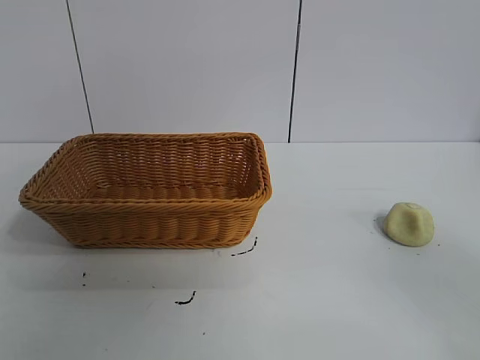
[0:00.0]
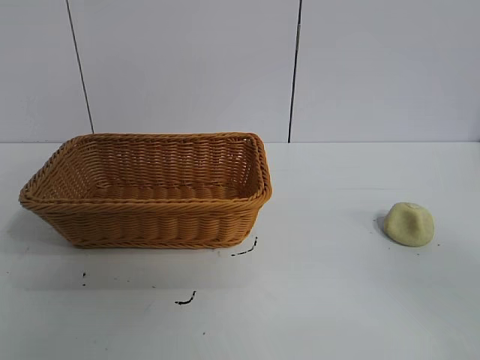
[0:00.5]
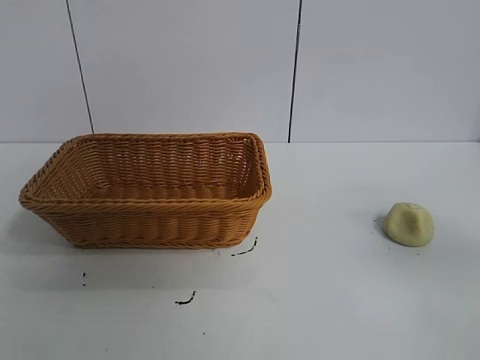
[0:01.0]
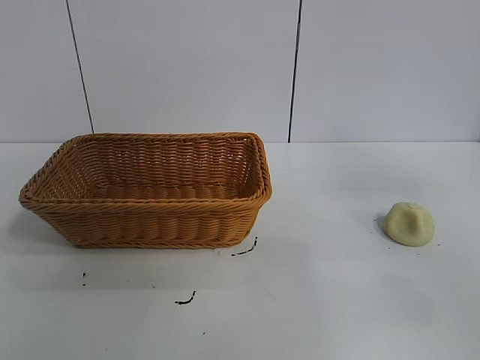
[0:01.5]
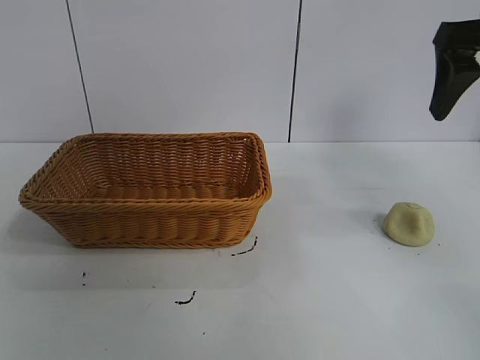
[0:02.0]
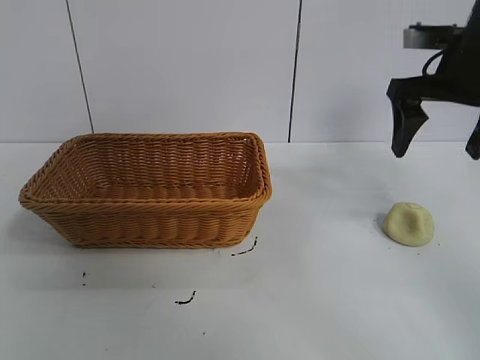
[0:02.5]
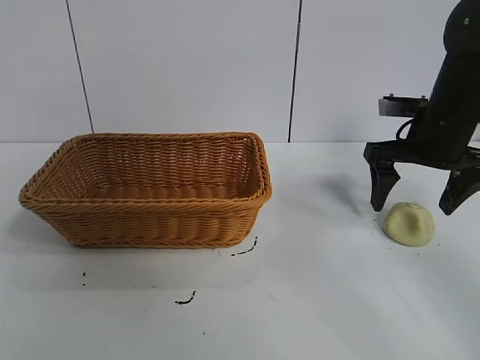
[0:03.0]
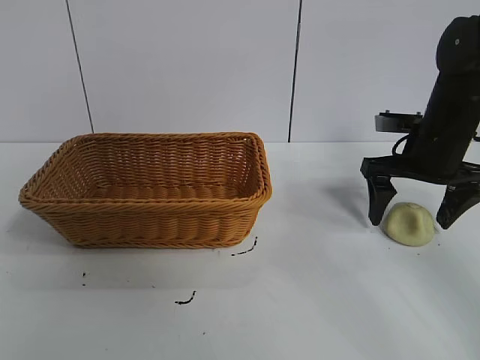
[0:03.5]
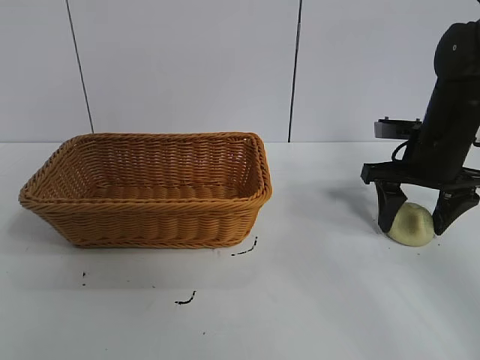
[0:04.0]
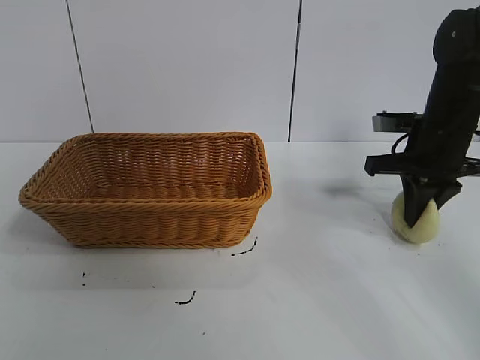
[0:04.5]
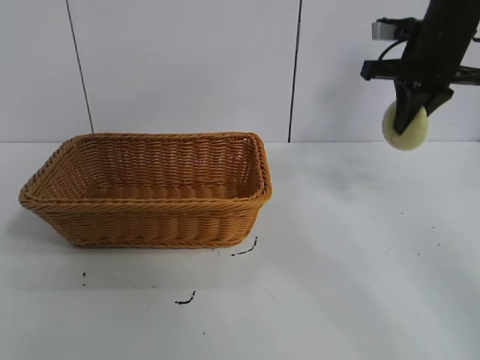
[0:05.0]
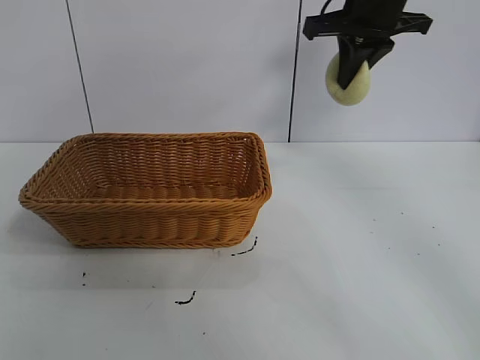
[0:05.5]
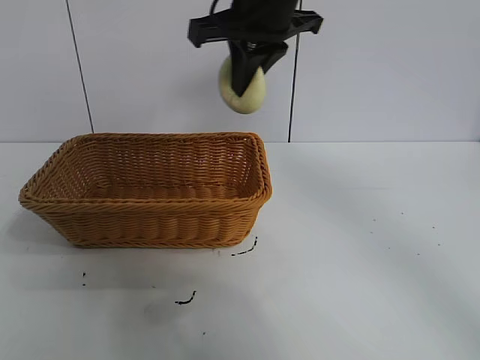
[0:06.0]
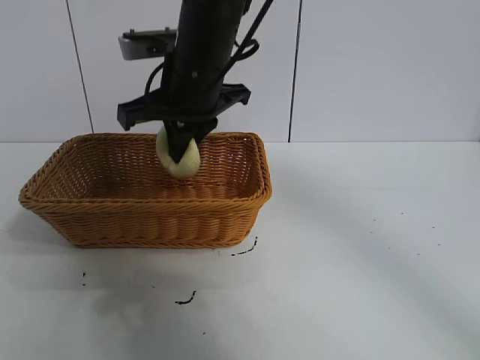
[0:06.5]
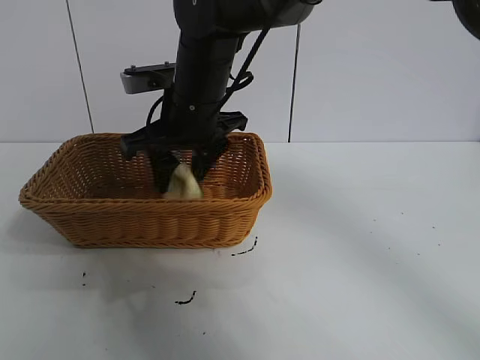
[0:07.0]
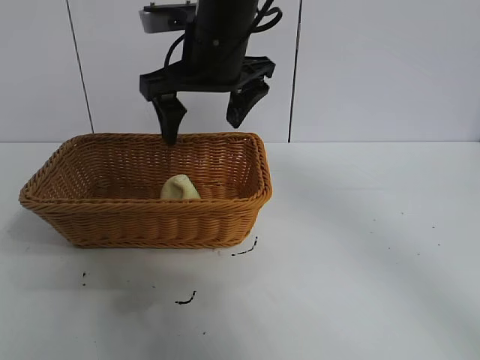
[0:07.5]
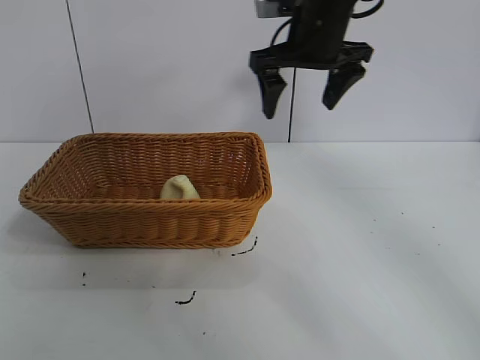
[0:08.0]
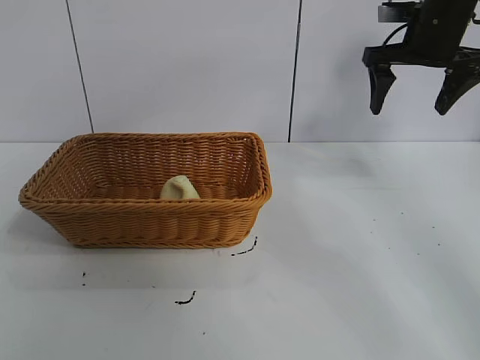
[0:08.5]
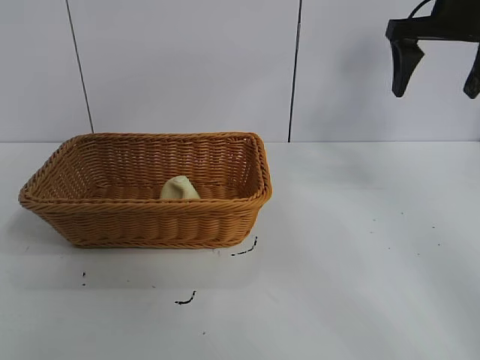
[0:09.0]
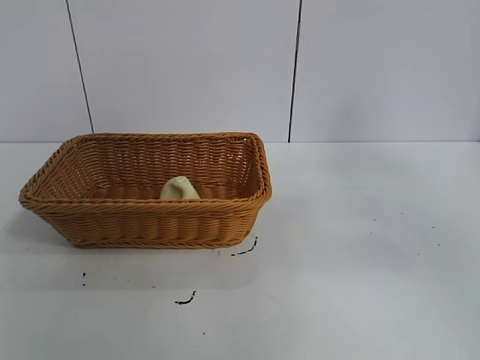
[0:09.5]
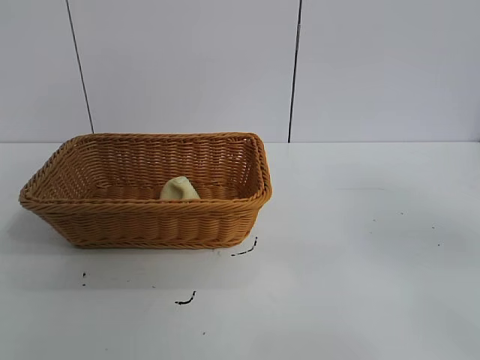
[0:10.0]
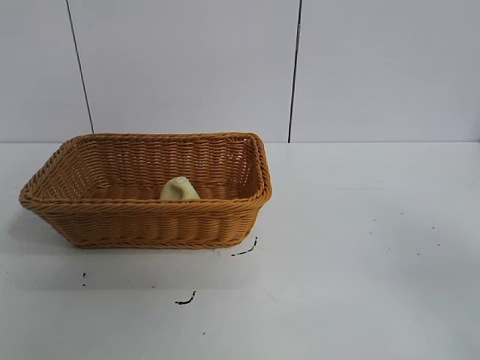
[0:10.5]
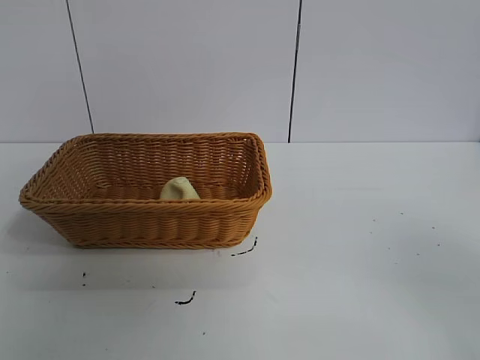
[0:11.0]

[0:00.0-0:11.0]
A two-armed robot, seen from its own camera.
Task of the whole recording: pick up the egg yolk pastry and put it into the basket.
Step, 0:01.0 to 0:04.0: Grasp egg yolk pastry with right gripper.
Step, 0:04.5 to 0:07.0: Place the egg yolk pastry in the basket with right gripper.
